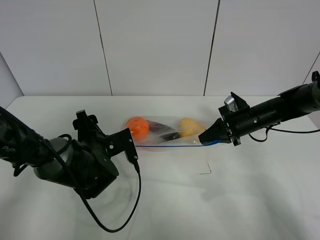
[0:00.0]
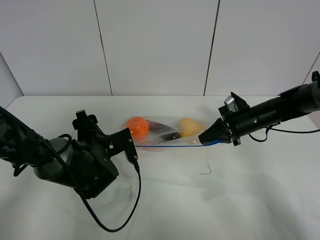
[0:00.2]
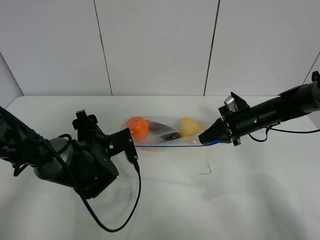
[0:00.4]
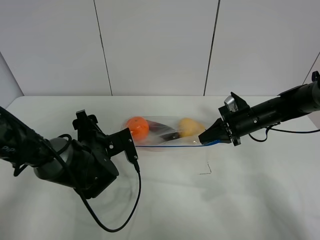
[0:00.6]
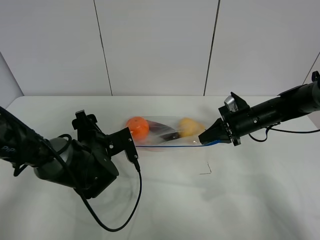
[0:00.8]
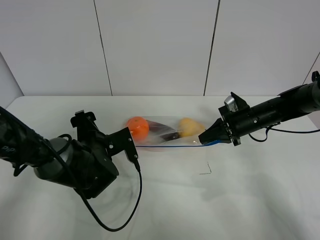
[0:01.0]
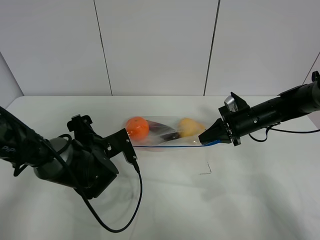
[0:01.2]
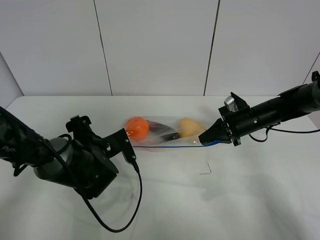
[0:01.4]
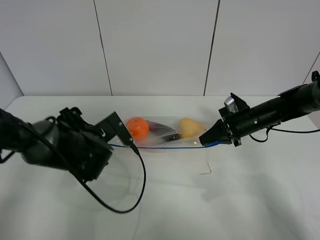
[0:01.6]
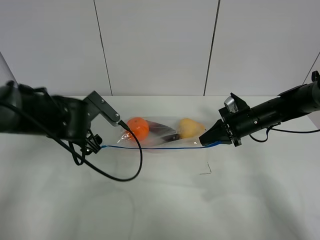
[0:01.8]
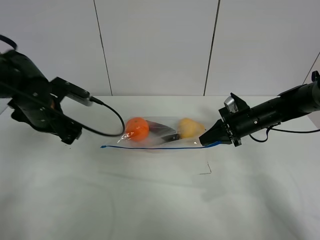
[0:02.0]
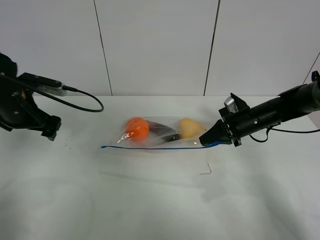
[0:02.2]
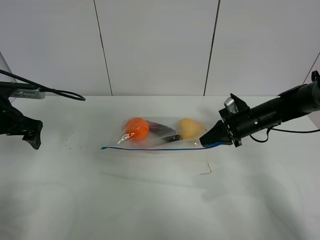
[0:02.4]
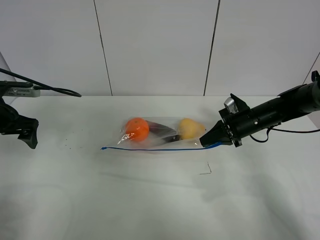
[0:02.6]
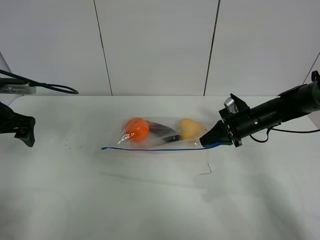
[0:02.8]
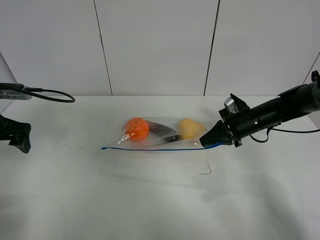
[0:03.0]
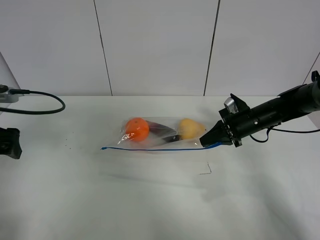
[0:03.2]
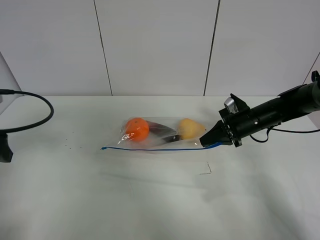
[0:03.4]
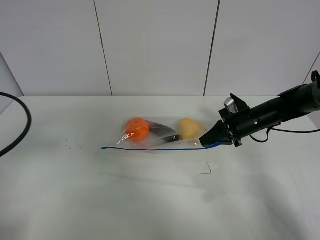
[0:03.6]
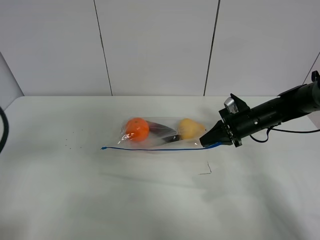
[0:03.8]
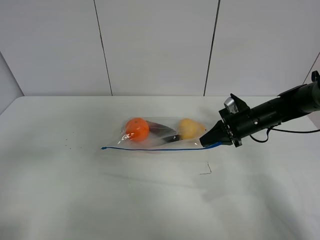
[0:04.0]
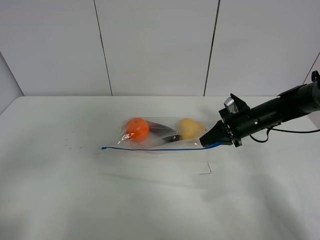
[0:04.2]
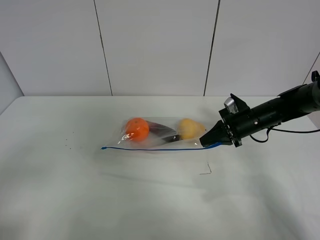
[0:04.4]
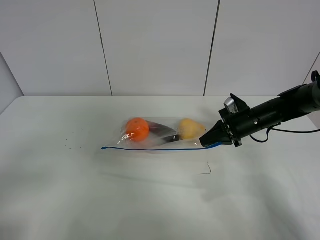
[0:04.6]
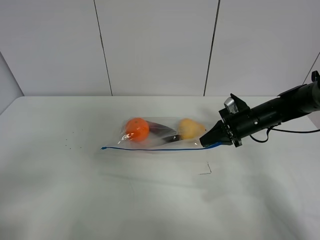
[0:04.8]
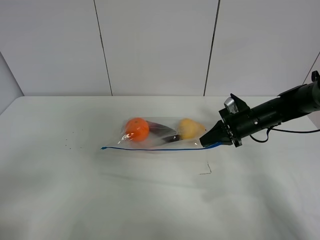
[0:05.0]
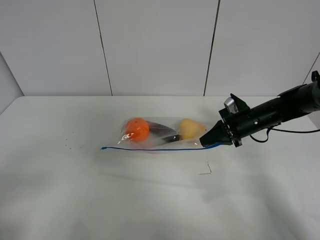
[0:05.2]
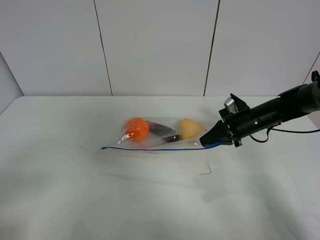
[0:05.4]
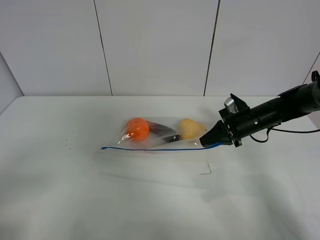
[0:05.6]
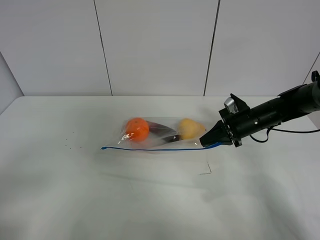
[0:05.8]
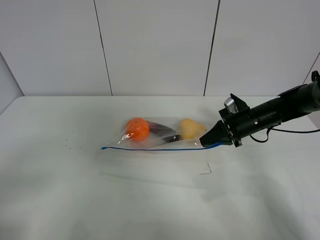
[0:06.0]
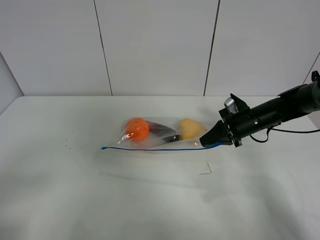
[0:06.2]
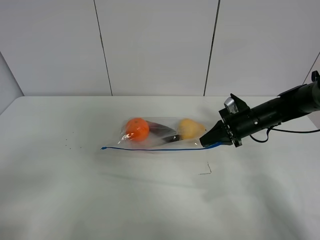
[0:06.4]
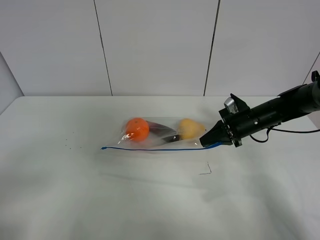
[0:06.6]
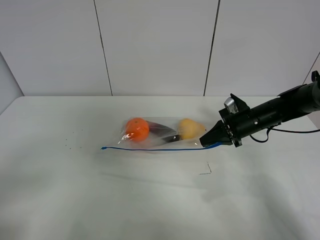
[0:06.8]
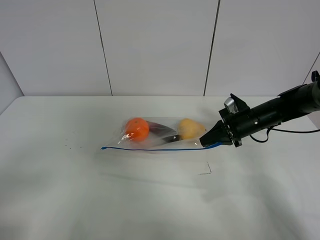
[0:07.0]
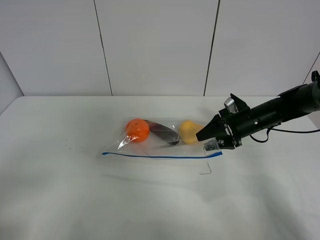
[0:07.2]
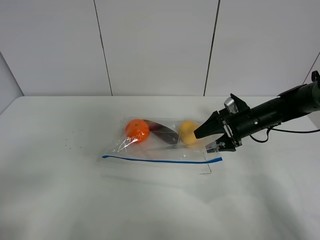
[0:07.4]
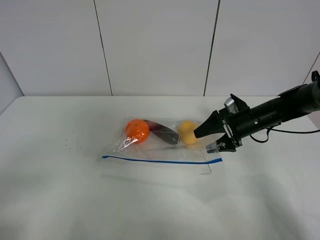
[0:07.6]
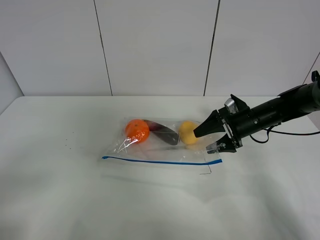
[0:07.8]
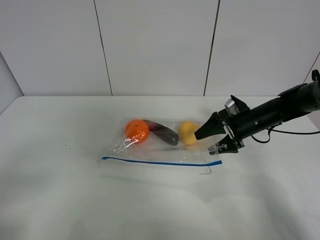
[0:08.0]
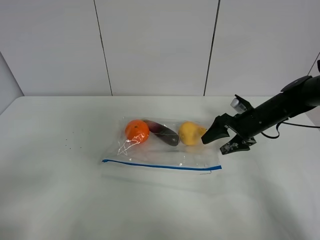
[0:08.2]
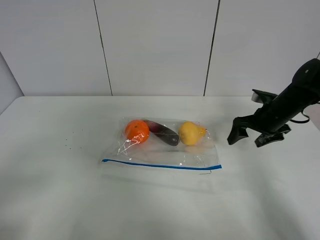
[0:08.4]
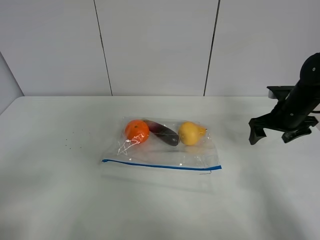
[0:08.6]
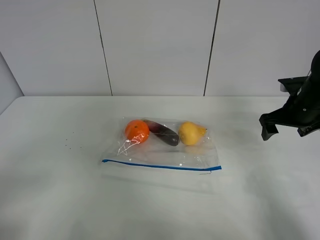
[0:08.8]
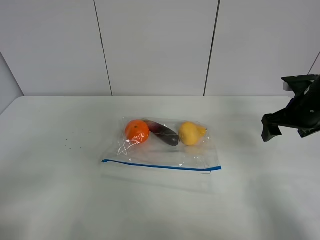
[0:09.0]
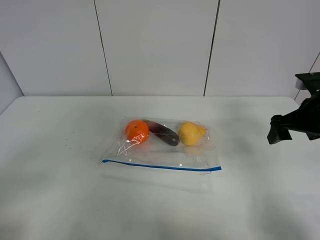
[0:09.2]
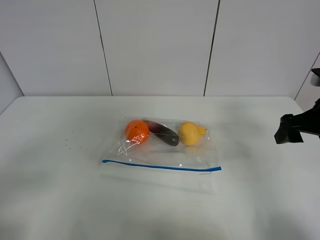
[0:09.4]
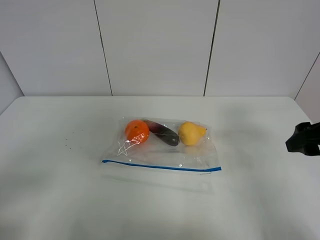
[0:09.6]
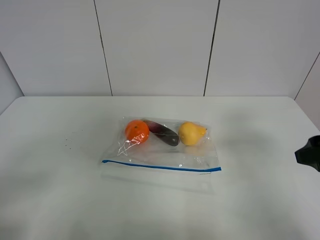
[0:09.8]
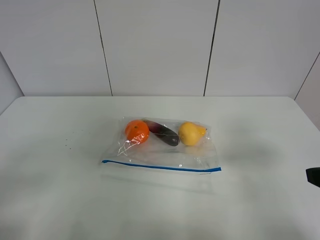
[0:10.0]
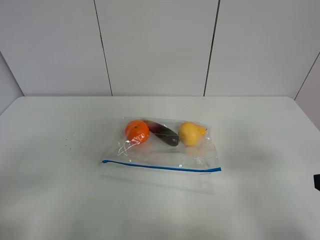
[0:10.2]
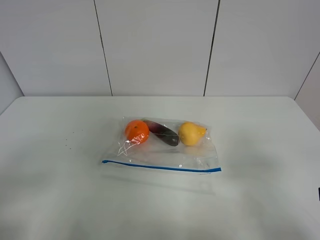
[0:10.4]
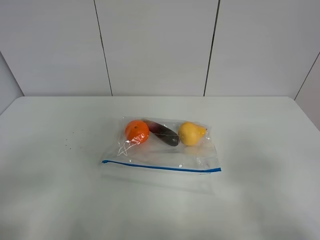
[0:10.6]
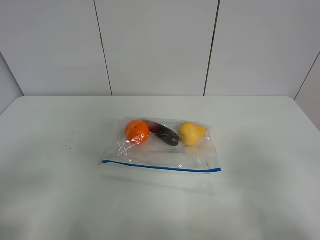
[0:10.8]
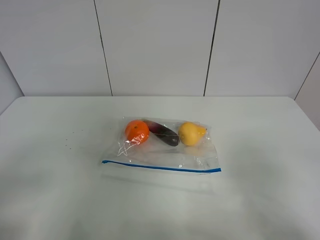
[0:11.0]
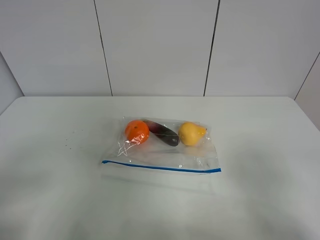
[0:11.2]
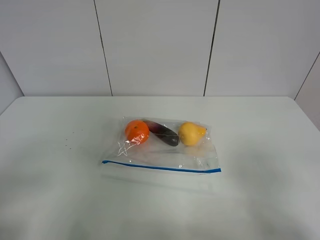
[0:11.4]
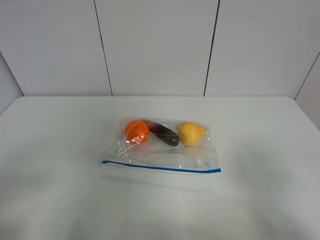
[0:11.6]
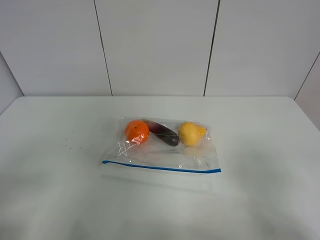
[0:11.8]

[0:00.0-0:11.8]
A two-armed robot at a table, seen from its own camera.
0:00.0 to 0:01.4: There are only small adjustments of the grippers.
0:01.4 to 0:03.0: The left gripper is displaced to the left and upward by roughly 25 cm.
0:03.0 to 0:04.4: The left gripper moves backward, roughly 25 cm.
0:06.0 to 0:07.4: The right gripper opens its fingers.
0:07.4 to 0:08.8: The right gripper moves to the right and upward, approximately 10 cm.
0:08.8 to 0:10.4: The right gripper heads backward, covering some 30 cm.
